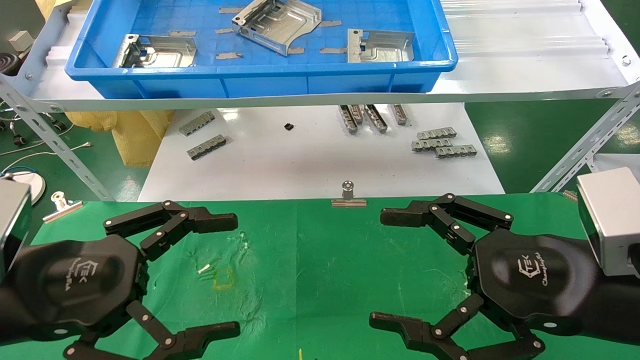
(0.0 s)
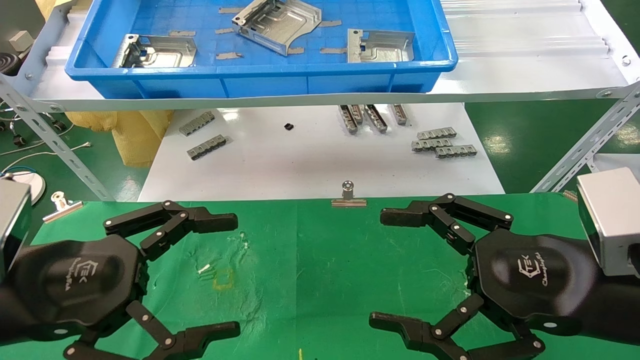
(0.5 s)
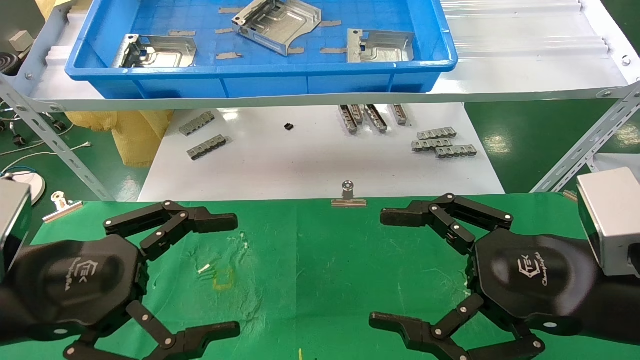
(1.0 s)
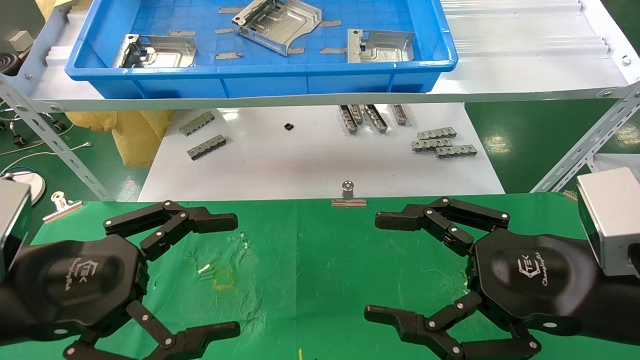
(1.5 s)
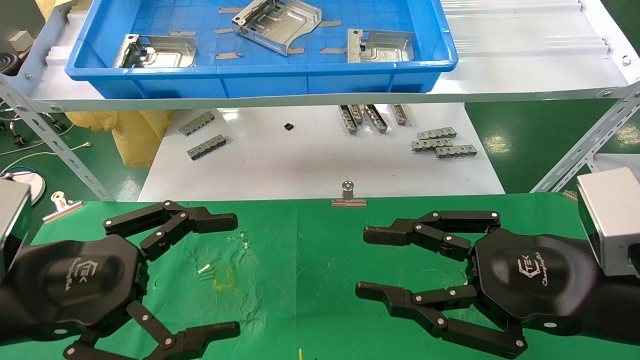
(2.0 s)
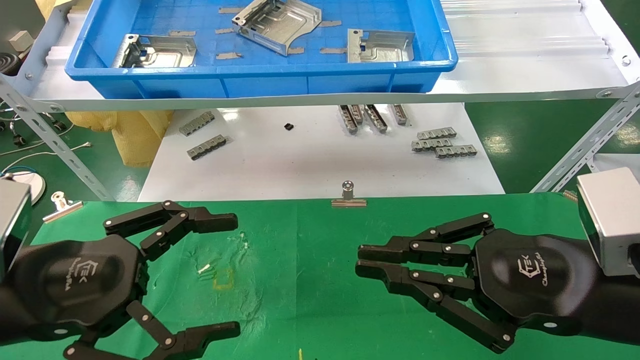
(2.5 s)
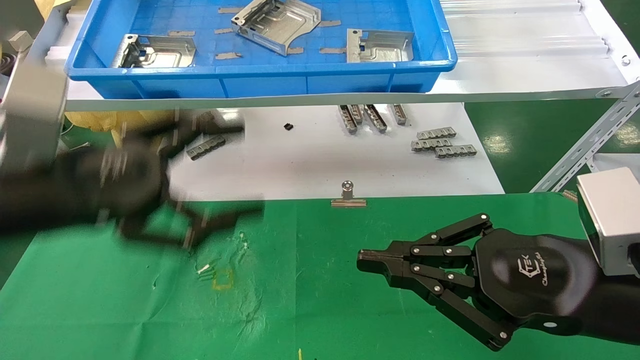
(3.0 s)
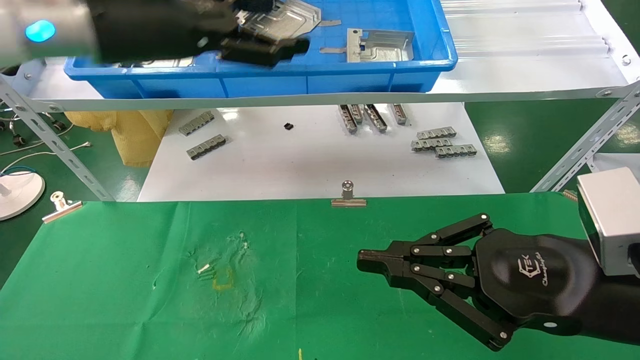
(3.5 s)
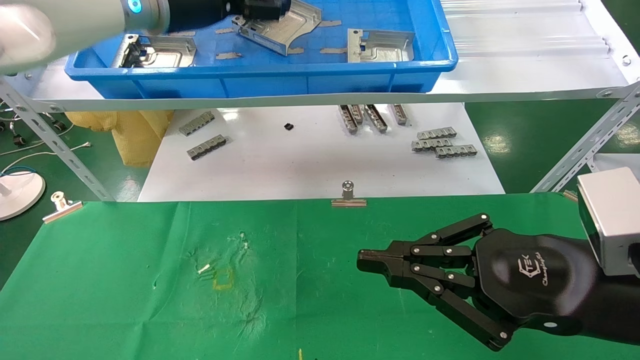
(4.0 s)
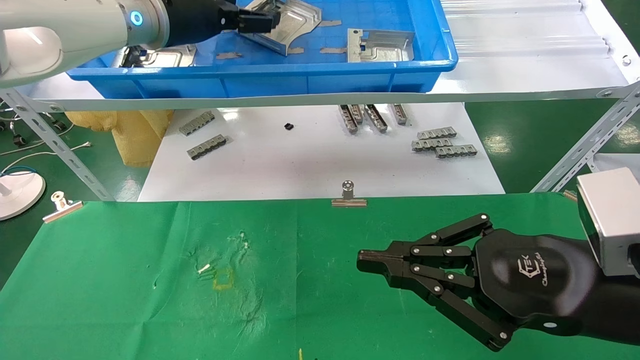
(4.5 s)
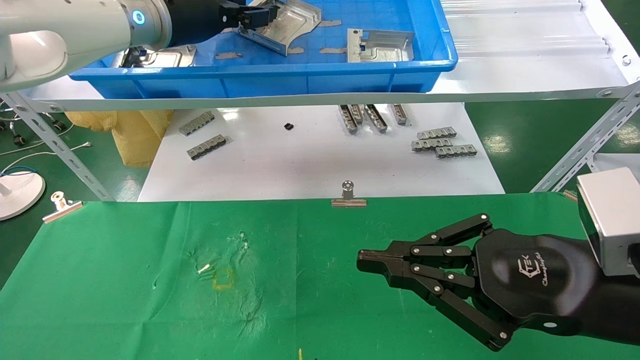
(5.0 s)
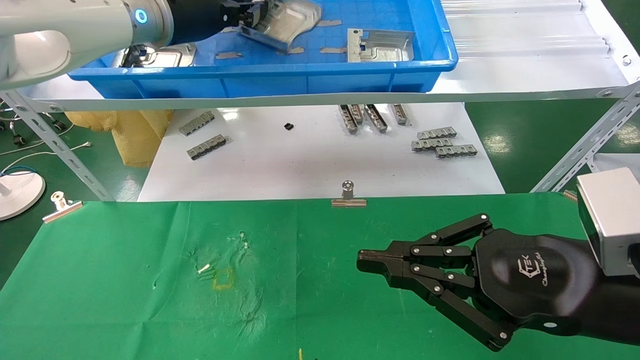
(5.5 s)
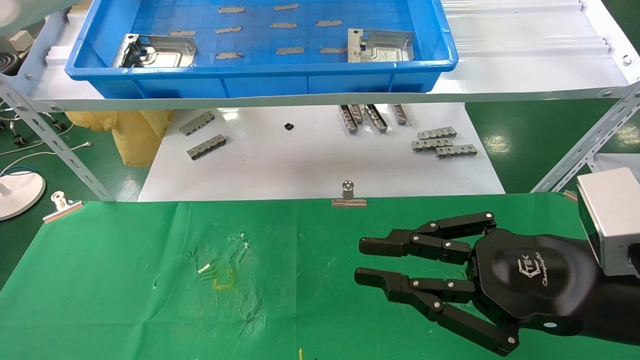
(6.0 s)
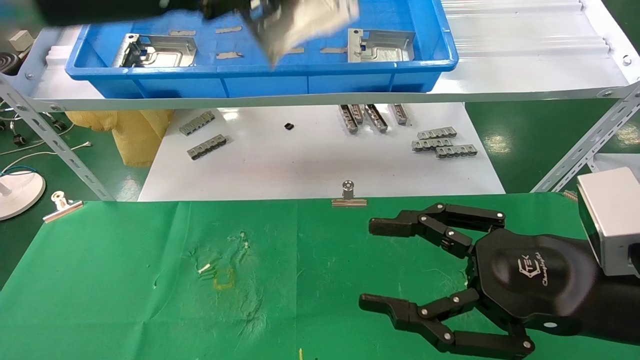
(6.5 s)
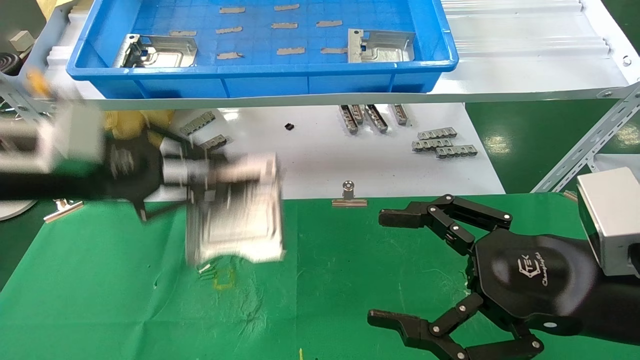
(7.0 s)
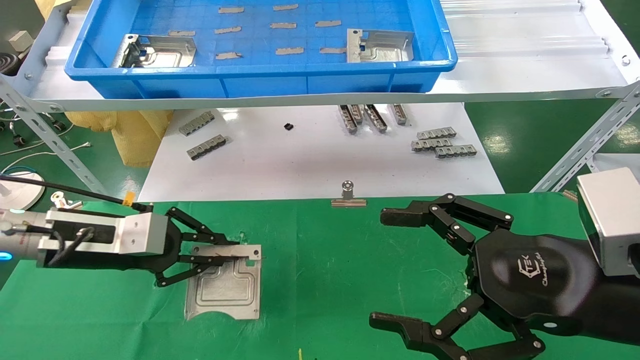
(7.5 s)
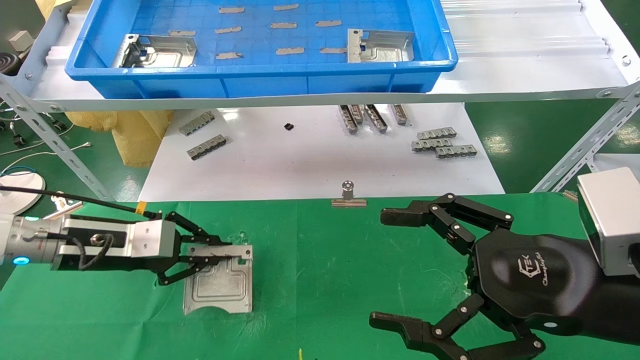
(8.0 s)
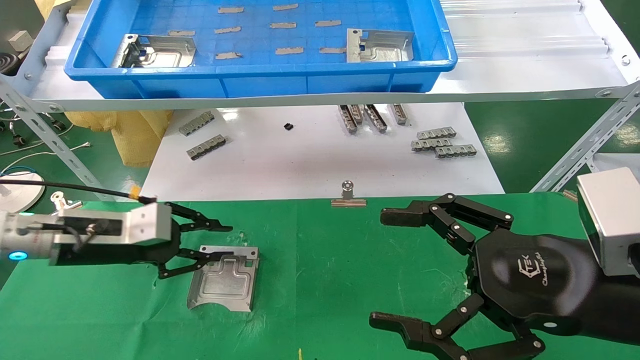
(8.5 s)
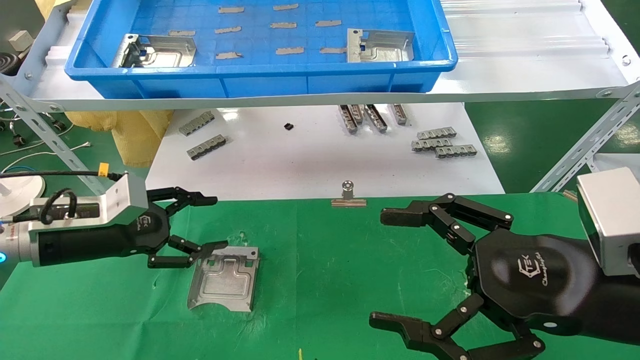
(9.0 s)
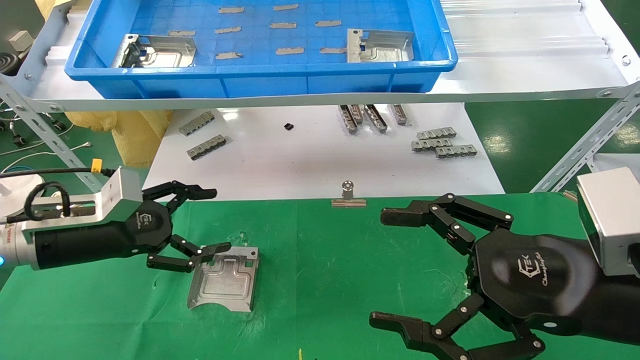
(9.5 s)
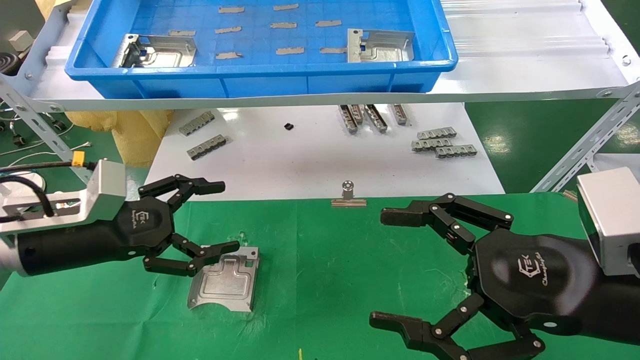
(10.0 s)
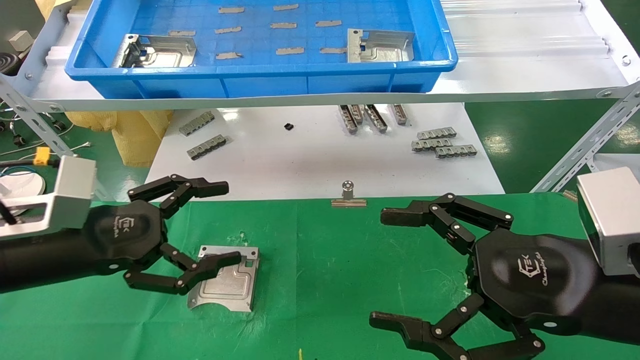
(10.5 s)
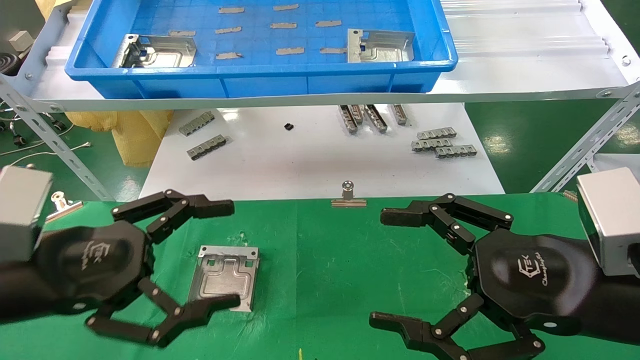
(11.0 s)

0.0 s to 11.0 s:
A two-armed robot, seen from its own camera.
Task of the whole recording: use the mechanical arm to pick up the parts and place them on the table.
Step, 3.0 to 5.0 s: Pick up the hard drive bracket from the feeding area.
Step, 5.5 to 8.5 s: Place the hard drive bracket into the box.
0.0 to 2.0 s: The right gripper closes its fingers.
2.0 to 3.5 s: The left gripper shifts some 25 cm upward and forward. The right gripper closes.
3.5 to 5.5 s: The left gripper shifts some 10 cm forward, and closes up.
5.5 to 7.5 s: The left gripper heads downward and to the left, covering about 30 cm, while the right gripper opens.
7.5 to 9.0 s: The left gripper opens up.
9.0 to 11.0 s: The left gripper heads backward, covering approximately 15 cm, and opens up.

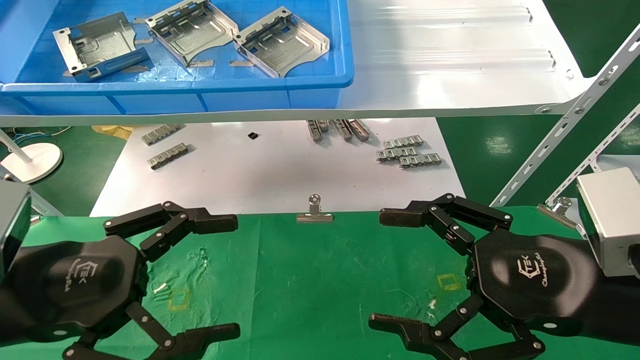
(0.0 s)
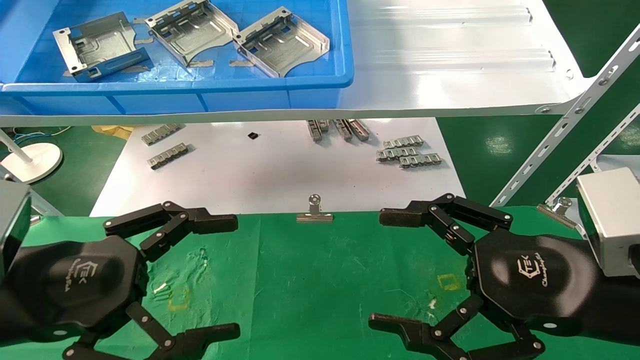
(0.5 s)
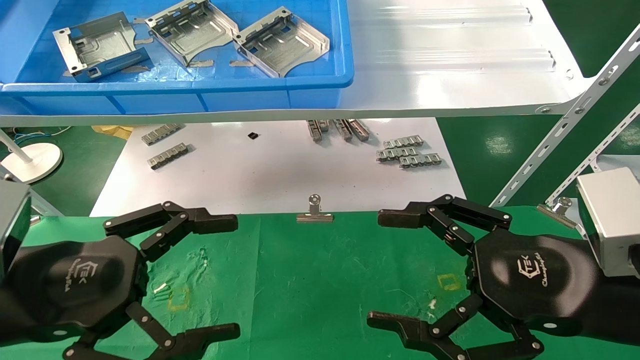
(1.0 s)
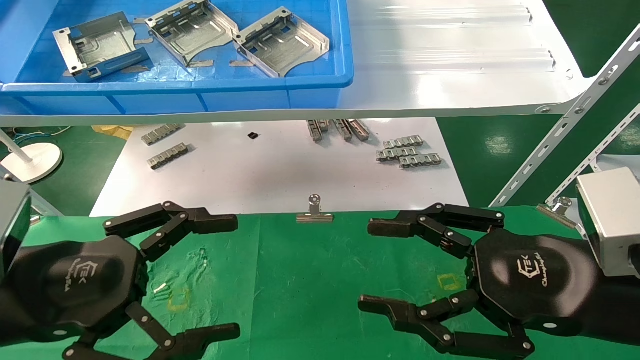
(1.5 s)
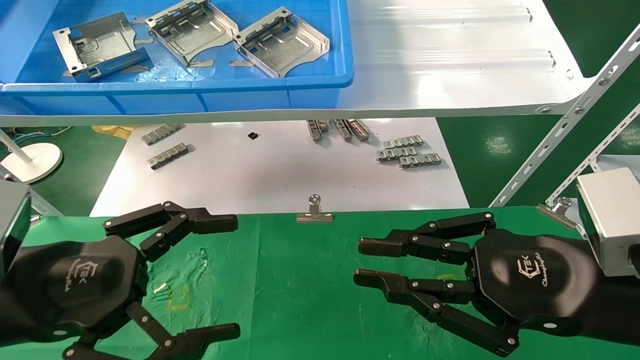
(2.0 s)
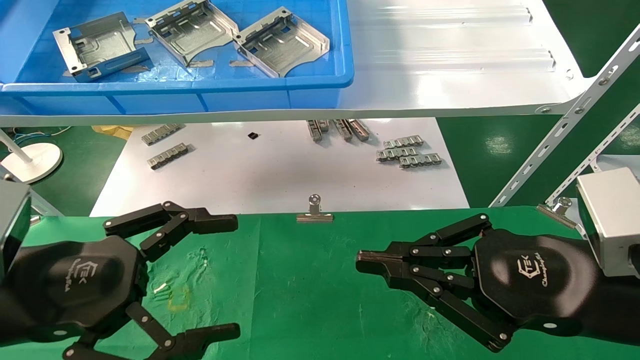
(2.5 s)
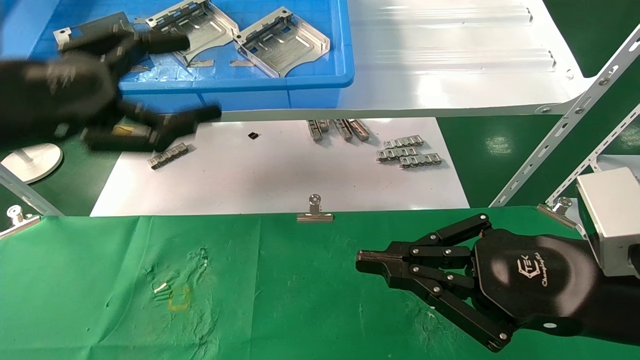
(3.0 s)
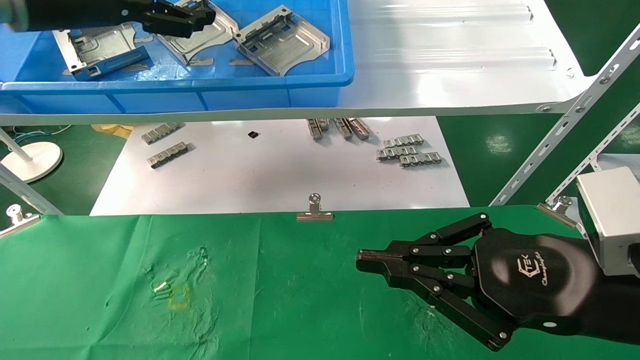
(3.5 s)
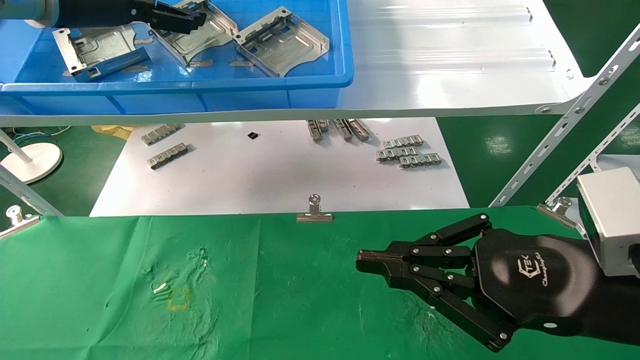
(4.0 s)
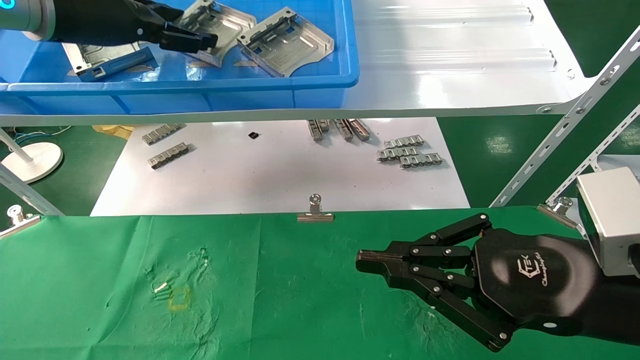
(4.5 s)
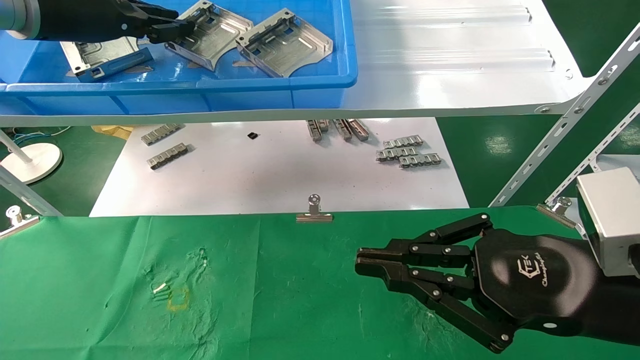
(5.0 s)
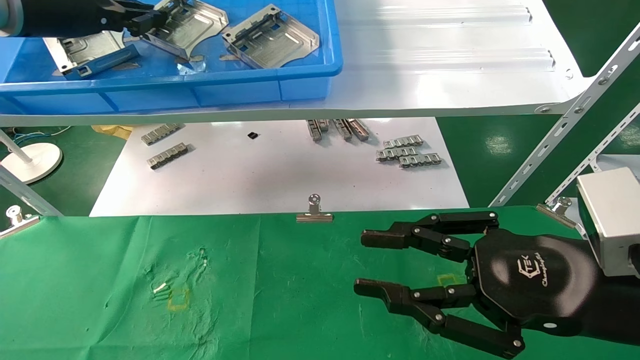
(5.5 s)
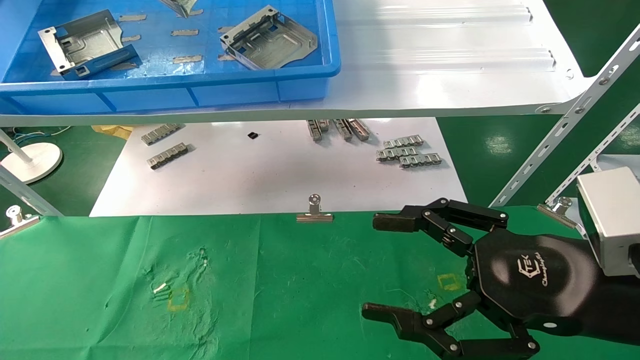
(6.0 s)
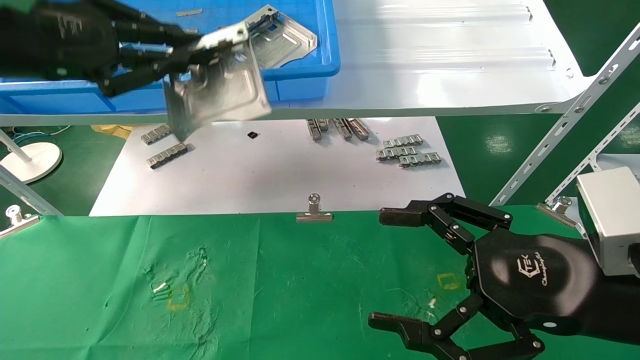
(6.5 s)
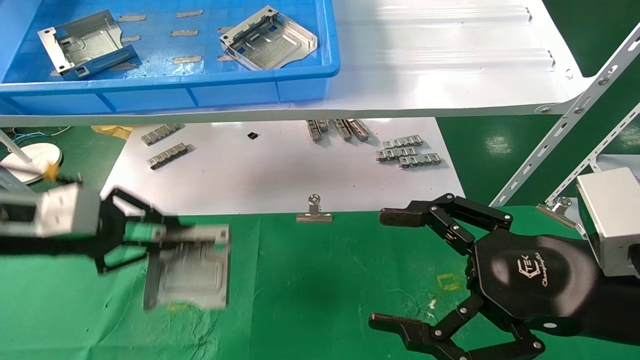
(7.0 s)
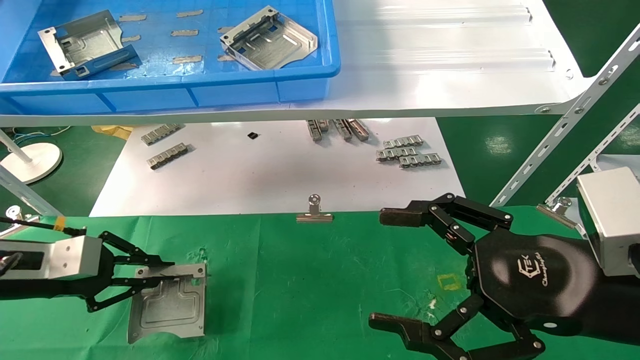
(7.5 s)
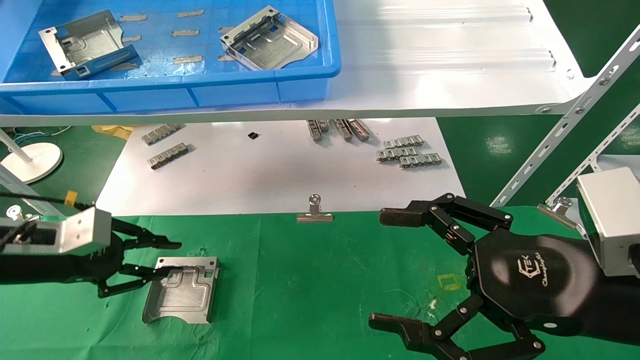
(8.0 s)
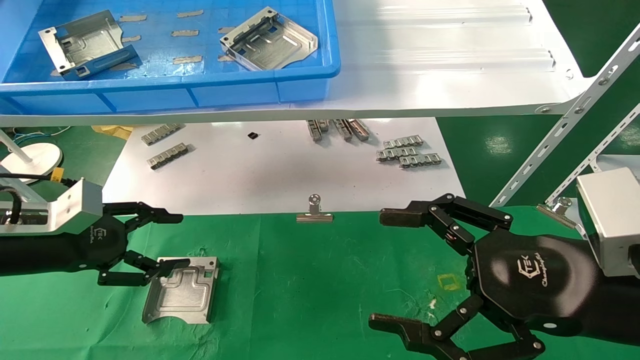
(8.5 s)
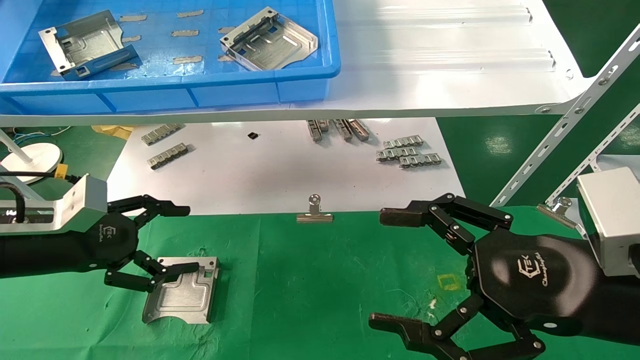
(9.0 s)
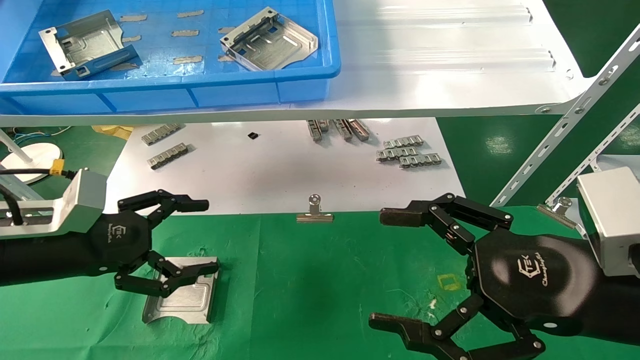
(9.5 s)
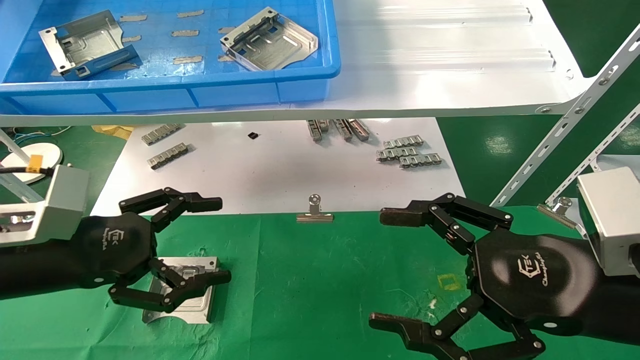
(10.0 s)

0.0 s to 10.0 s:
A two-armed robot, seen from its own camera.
Task of the whole recording: use the mechanical arm to pick up the parts and place them on the table.
Step, 3.0 to 5.0 s: Pick up the hard drive bracket from the feeding area.
Step, 5.5 to 7.5 s: Place the hard drive bracket into the box.
0.0 to 2.0 s: The right gripper closes.
2.0 to 4.0 s: The left gripper goes about 30 cm upward and forward.
4.0 to 6.0 s: The left gripper heads backward, covering about 5 cm, and closes its fingers; the right gripper opens up.
6.0 to 8.0 s: The left gripper travels downward by some 30 cm.
8.0 to 10.0 s: The left gripper shifts some 10 cm to the right and backward, and opens its fingers.
